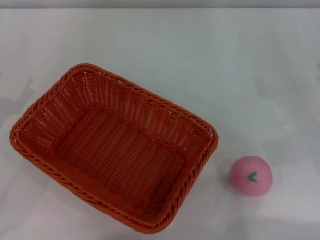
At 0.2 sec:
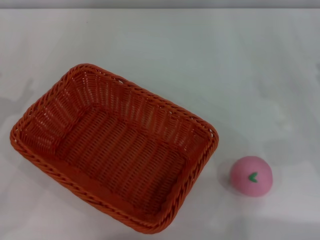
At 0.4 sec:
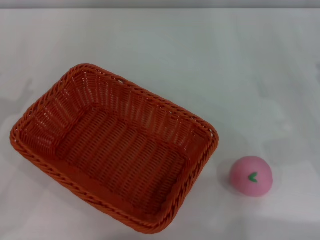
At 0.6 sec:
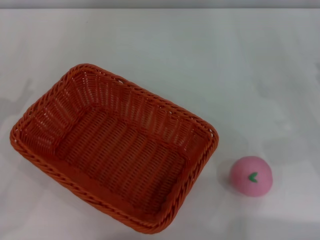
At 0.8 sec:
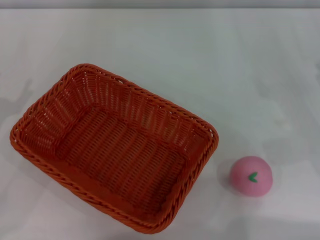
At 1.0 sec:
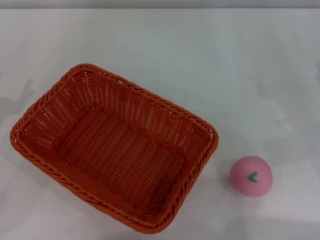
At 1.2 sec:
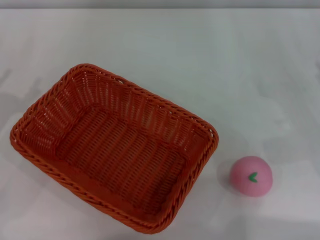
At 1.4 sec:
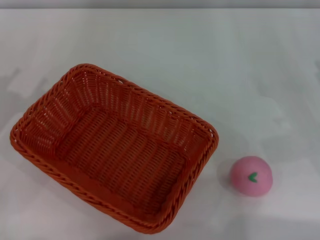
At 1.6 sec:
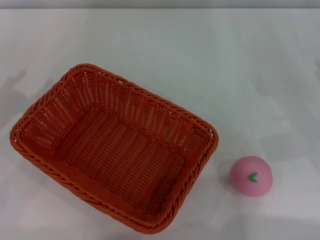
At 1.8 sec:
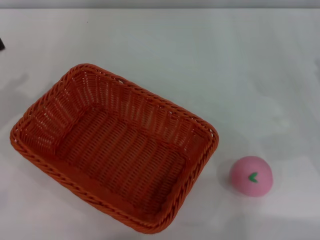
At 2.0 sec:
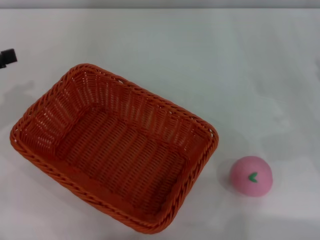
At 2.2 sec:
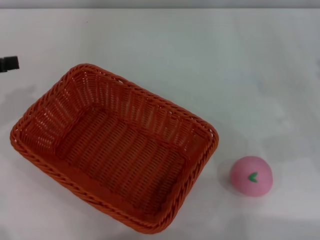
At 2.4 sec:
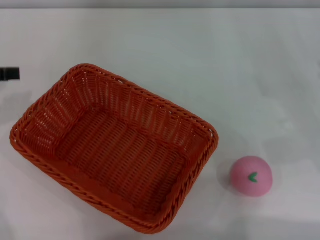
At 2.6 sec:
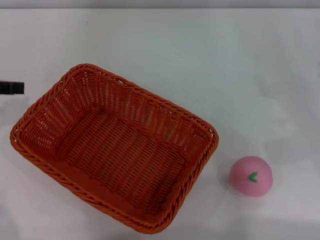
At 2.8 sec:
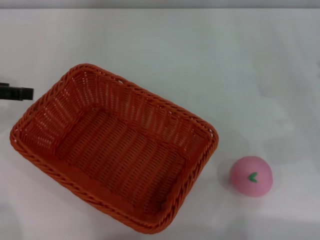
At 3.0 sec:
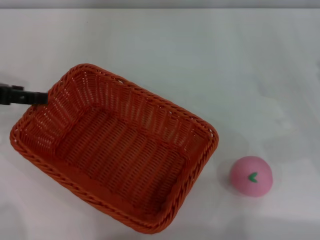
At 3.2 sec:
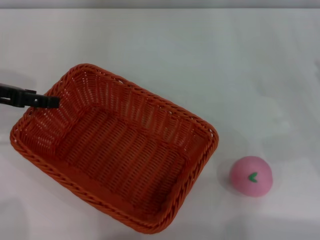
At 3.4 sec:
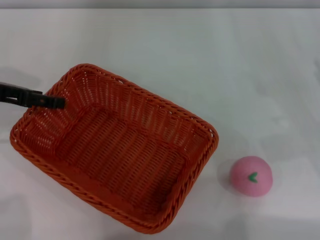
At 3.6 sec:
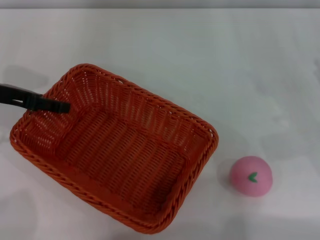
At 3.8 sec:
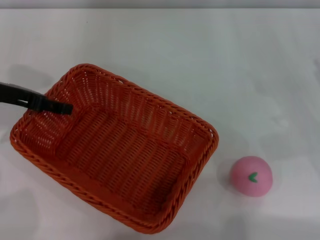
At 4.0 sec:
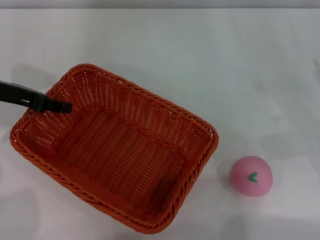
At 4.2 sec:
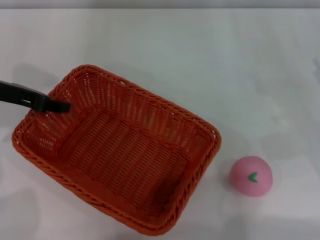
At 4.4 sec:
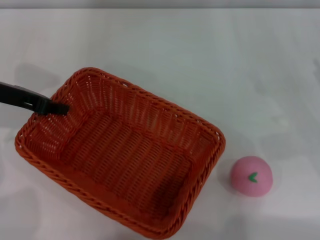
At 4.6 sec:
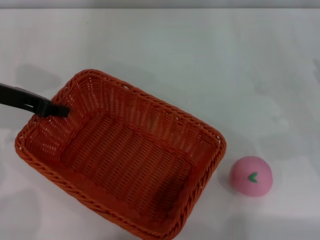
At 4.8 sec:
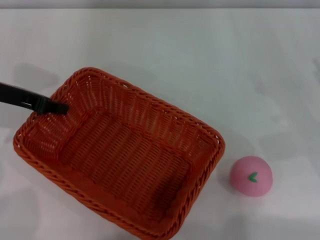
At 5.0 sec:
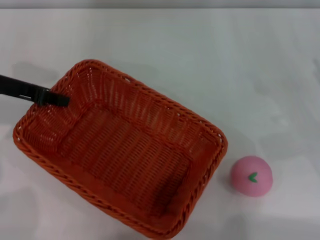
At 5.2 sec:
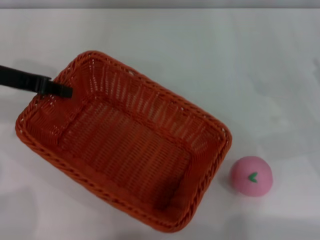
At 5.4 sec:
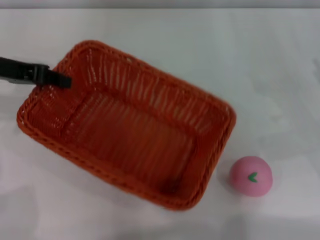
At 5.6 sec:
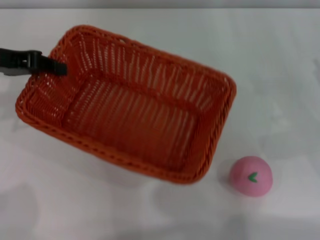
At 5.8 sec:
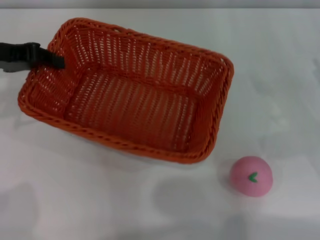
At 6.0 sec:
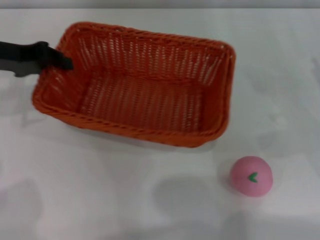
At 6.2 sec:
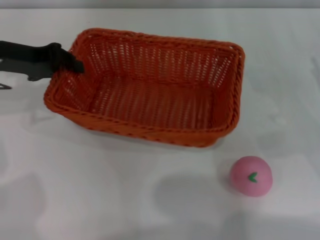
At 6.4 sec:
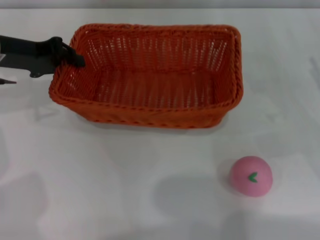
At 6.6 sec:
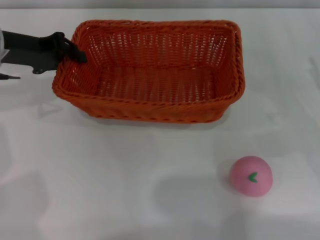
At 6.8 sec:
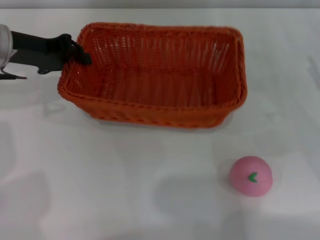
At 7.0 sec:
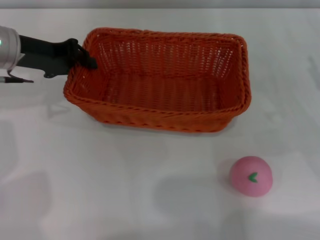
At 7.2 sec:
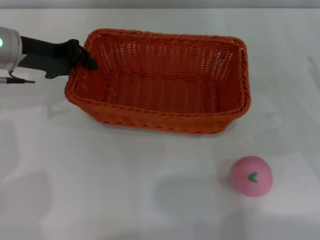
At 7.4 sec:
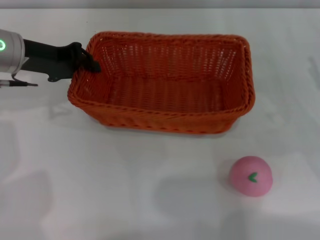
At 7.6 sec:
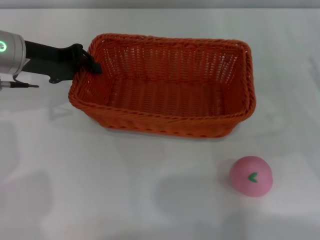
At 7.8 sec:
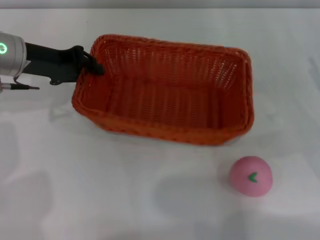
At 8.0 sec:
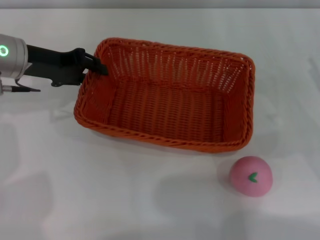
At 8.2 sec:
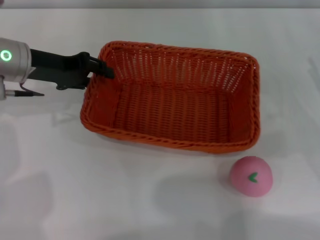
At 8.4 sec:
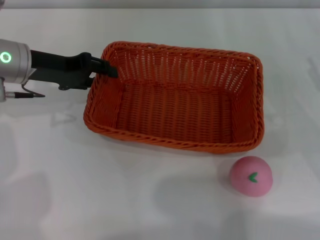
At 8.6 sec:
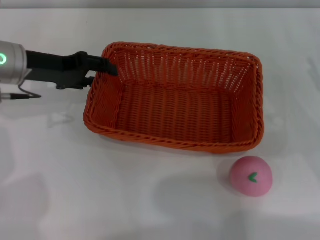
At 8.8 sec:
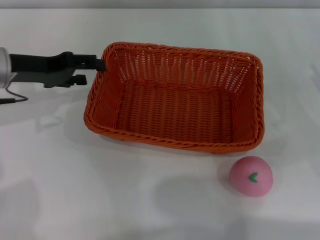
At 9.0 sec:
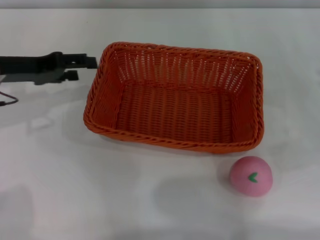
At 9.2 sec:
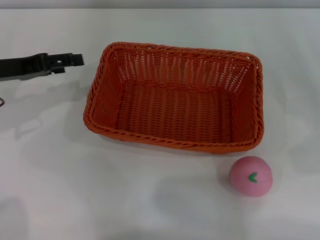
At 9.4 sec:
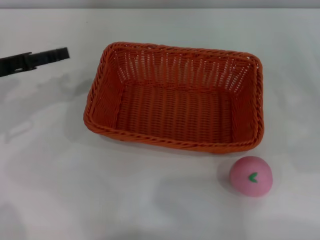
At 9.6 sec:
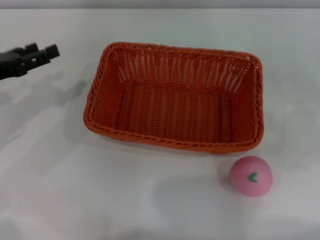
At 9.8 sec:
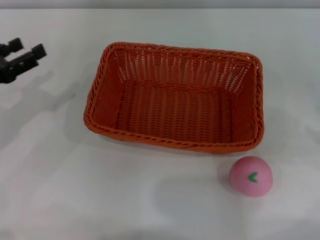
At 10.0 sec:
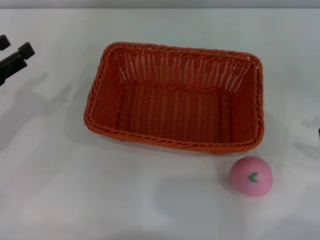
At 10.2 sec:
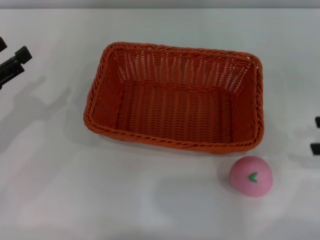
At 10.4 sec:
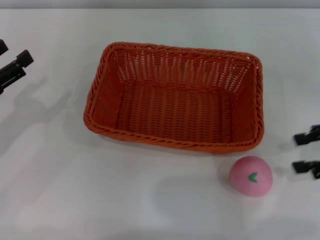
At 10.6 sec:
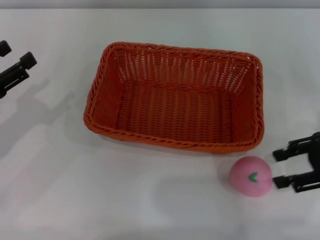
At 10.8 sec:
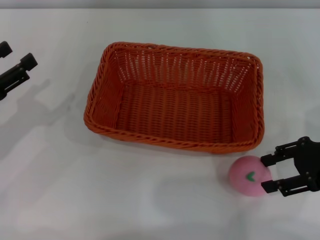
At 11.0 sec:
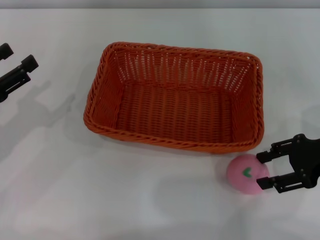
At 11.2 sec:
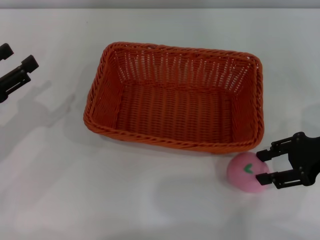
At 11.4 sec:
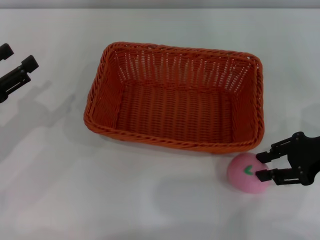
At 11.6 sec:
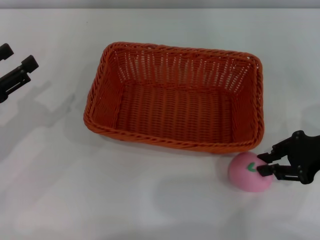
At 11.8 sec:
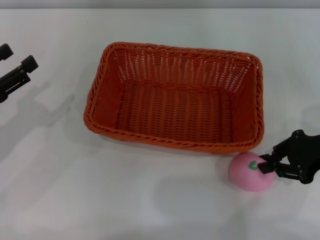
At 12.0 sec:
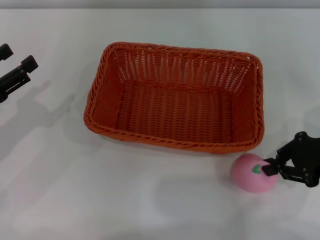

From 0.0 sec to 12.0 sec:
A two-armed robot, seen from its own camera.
Step, from 0.0 sec to 5.0 sec: Pick up the light basket with the left gripper.
Step, from 5.4 sec to 9.0 sec: Place the light basket in the center of view with the right gripper.
From 1.6 sec to 3.0 sec: The left gripper goes some 5 cm forward.
From 3.0 sec to 4.4 sec: The left gripper ends up about 5 cm from where it was, and closes its fingers.
From 6.0 sec to 7.6 sec: The left gripper shifts by approximately 5 cm.
From 7.6 sec to 9.0 sec: The left gripper changes place by about 5 cm, and opens its fingers.
From 9.0 sec to 10.4 sec: The left gripper moves backward and to the left, about 10 cm. The right gripper heads upward, covering about 5 cm.
From 10.4 sec to 12.0 sec: The right gripper moves some 5 cm, and closes.

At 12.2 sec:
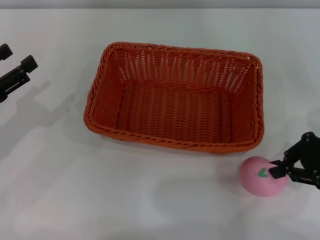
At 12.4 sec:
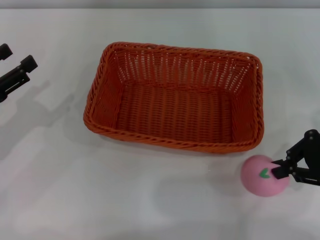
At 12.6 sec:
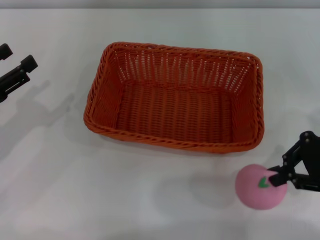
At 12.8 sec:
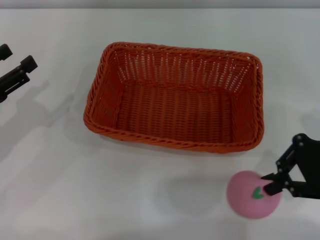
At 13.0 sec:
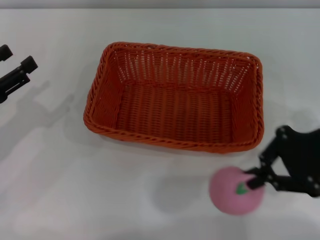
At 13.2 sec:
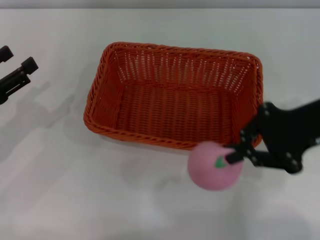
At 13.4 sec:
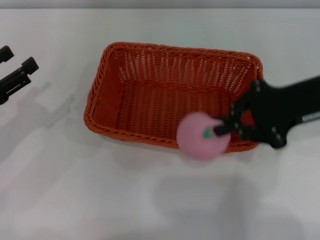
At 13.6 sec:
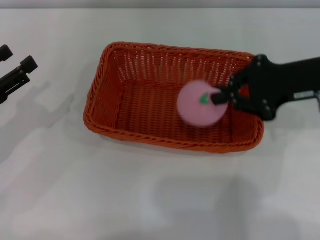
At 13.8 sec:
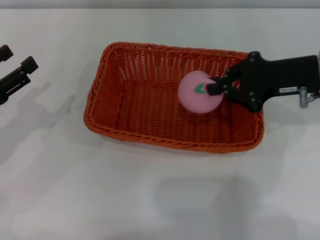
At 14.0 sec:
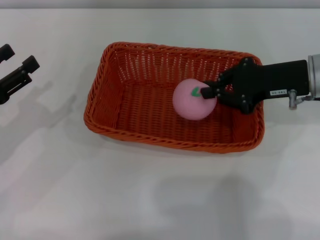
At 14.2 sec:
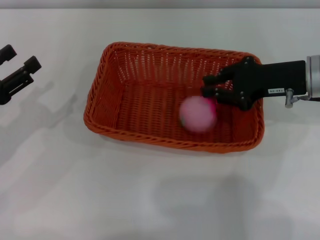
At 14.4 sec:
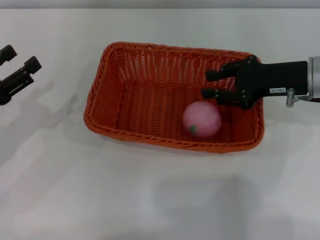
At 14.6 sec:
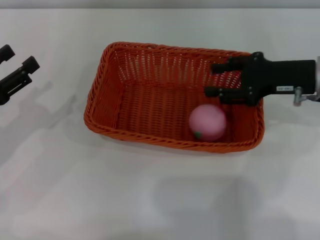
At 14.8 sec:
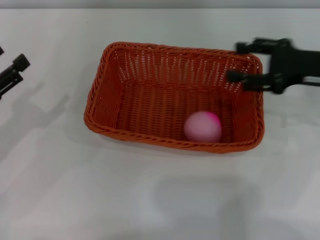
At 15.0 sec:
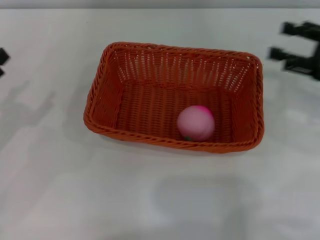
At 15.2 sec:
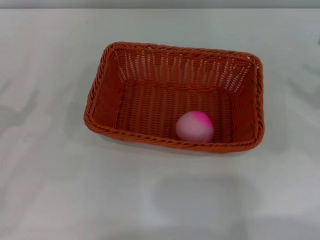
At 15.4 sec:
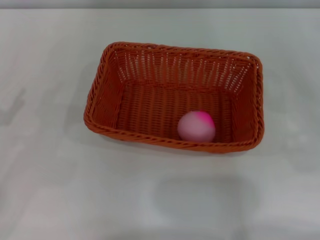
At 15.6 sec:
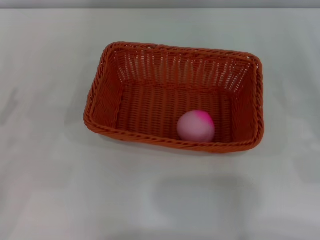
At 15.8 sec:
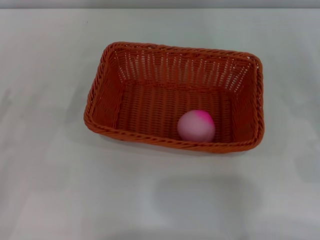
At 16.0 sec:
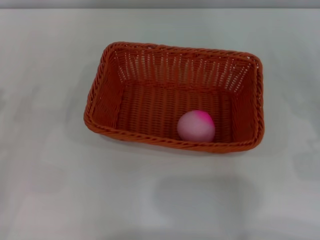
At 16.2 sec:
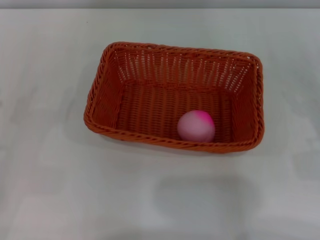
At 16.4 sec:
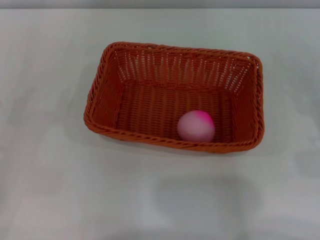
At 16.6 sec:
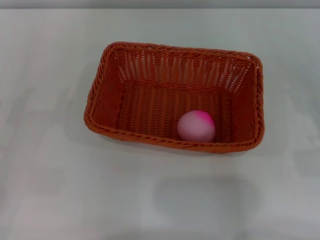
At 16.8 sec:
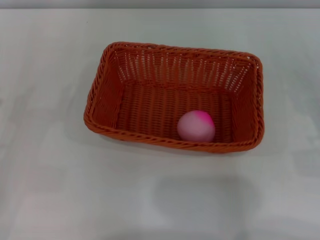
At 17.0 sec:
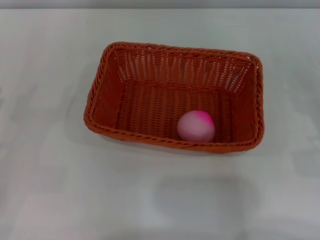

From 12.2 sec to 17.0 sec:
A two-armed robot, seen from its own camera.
From 12.2 sec to 13.8 sec: The right gripper travels forward and to the left by roughly 10 cm.
From 13.8 sec to 15.4 sec: The right gripper is displaced to the right and backward by about 20 cm, and opens.
